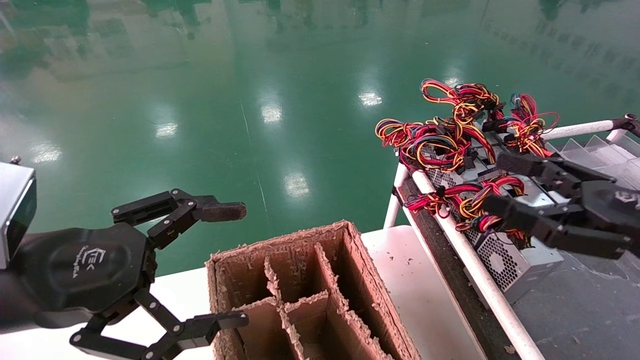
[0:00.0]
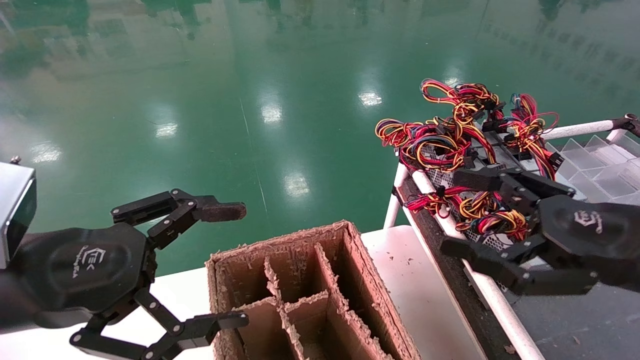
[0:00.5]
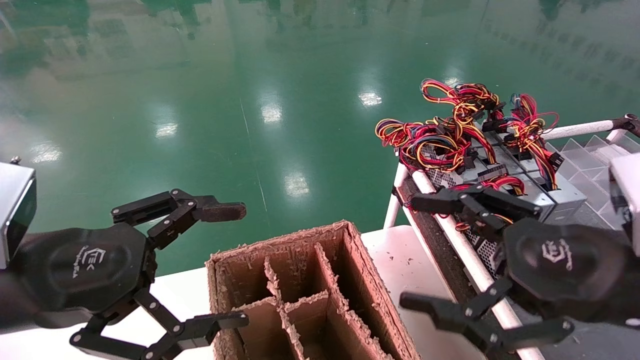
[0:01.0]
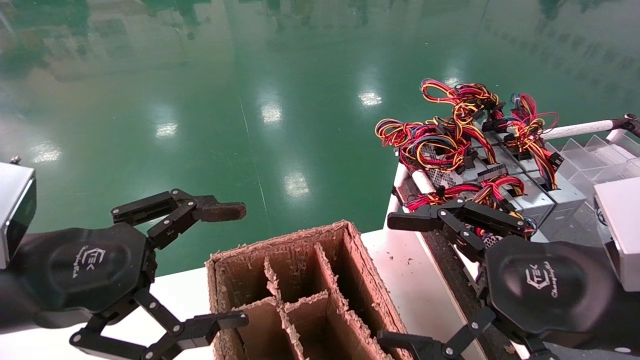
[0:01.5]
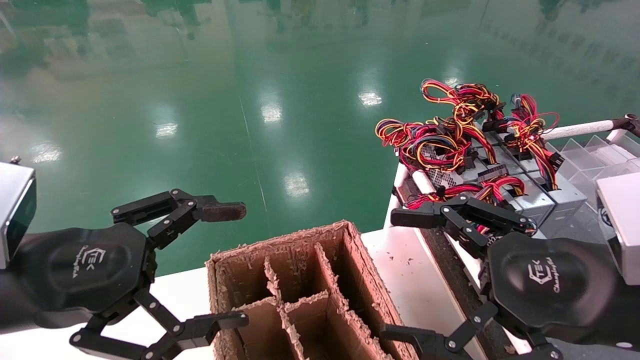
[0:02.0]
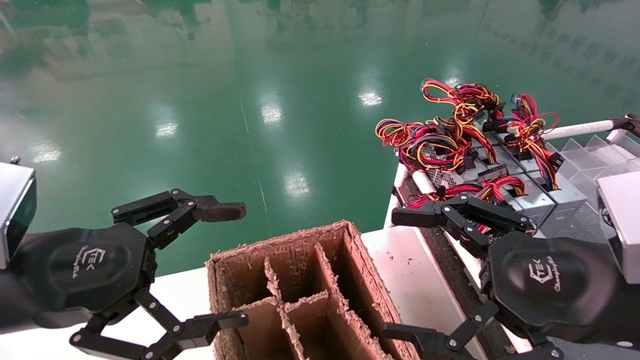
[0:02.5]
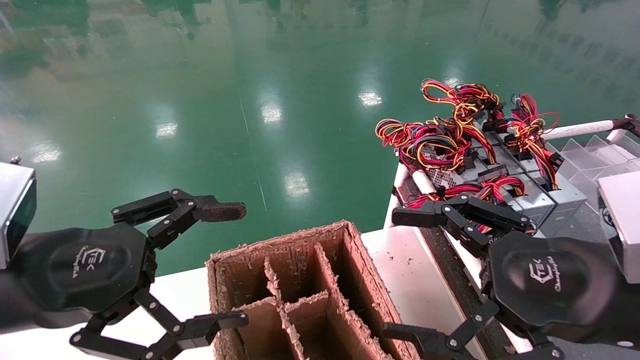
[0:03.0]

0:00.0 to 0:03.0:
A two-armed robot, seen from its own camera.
0:00.0 to 0:01.5: The right gripper is displaced to the left and backward by roughly 10 cm.
0:01.5 to 0:03.0: Both grippers stay put.
